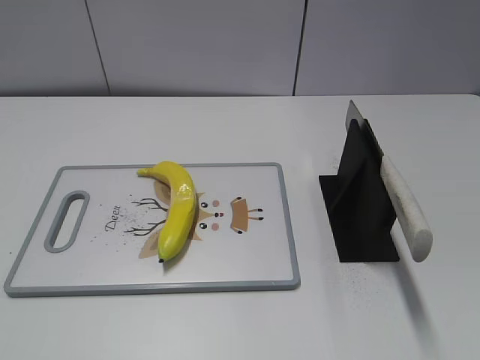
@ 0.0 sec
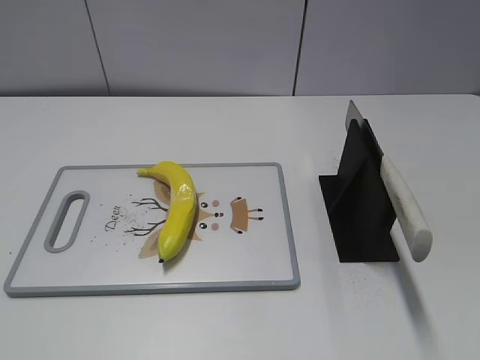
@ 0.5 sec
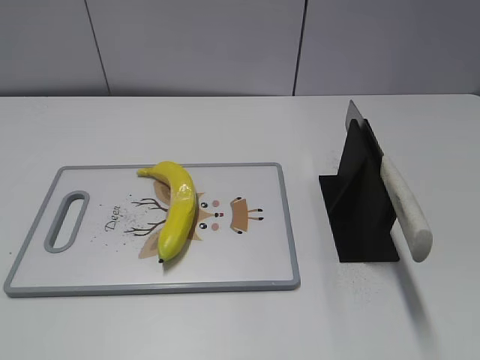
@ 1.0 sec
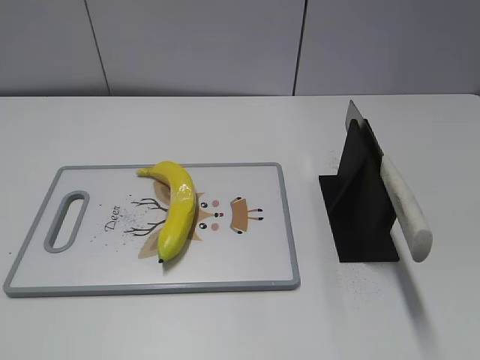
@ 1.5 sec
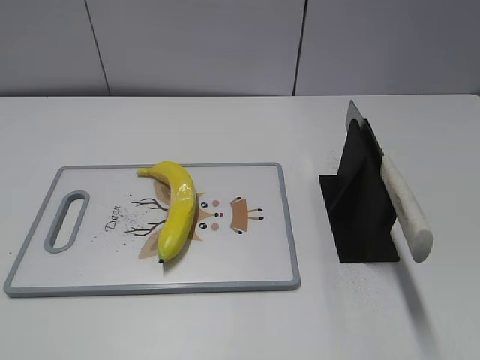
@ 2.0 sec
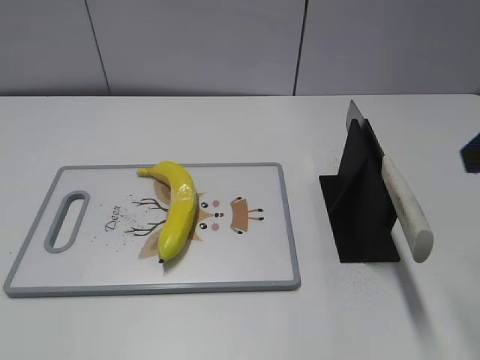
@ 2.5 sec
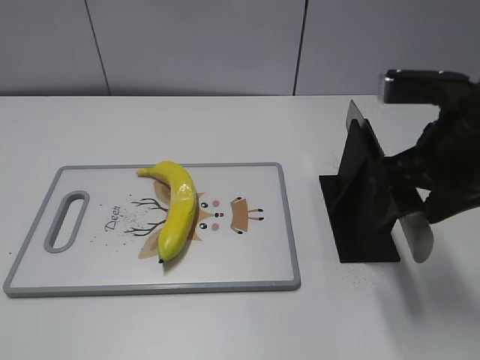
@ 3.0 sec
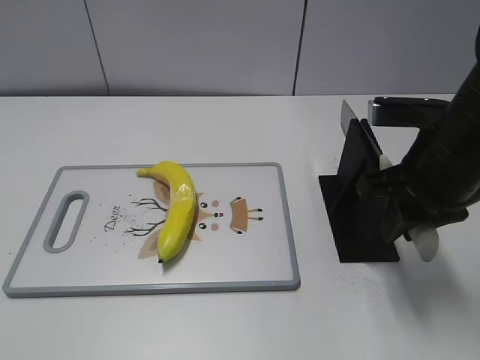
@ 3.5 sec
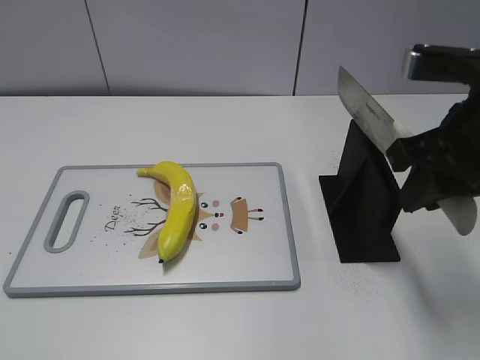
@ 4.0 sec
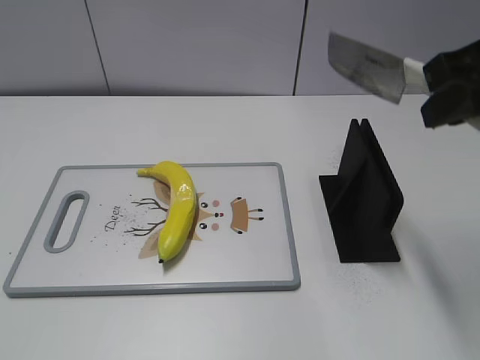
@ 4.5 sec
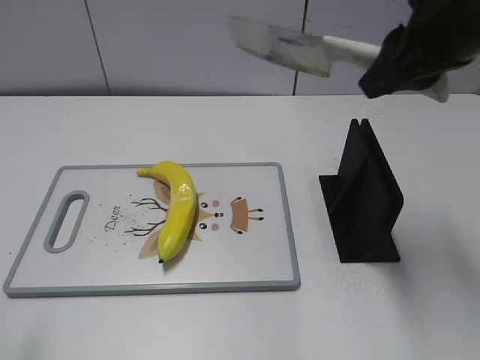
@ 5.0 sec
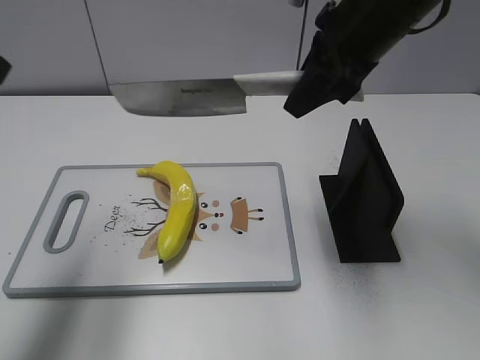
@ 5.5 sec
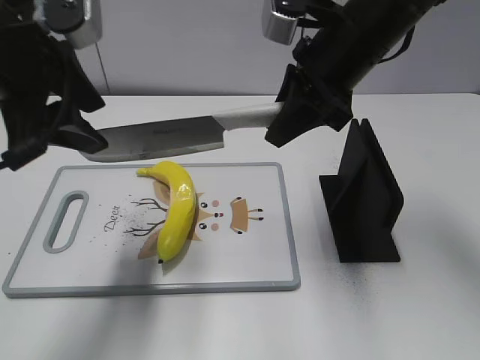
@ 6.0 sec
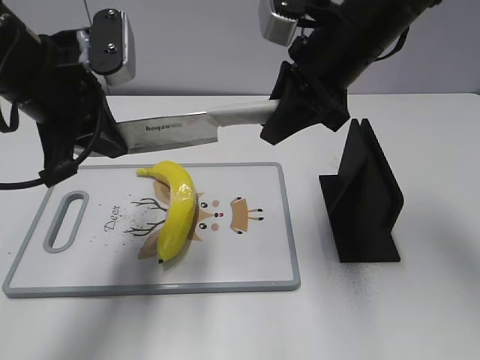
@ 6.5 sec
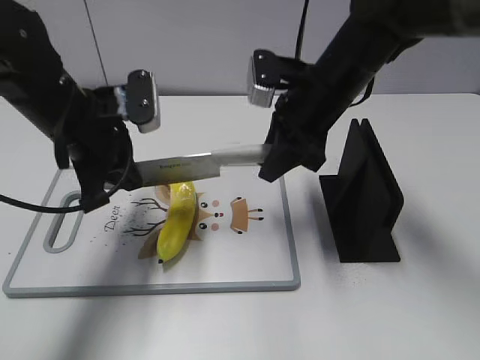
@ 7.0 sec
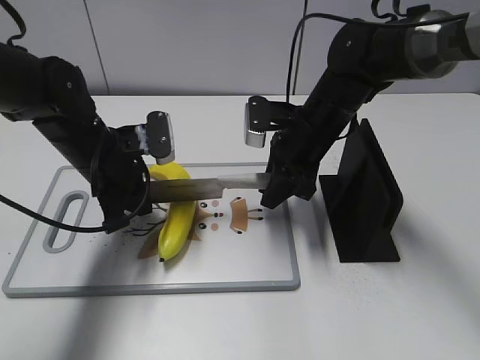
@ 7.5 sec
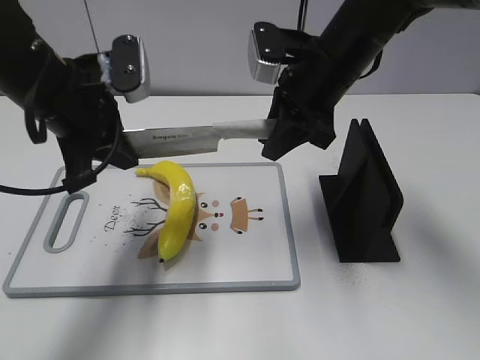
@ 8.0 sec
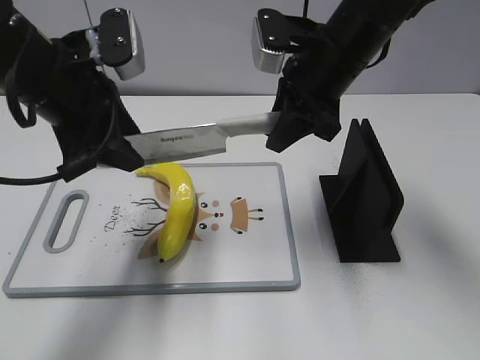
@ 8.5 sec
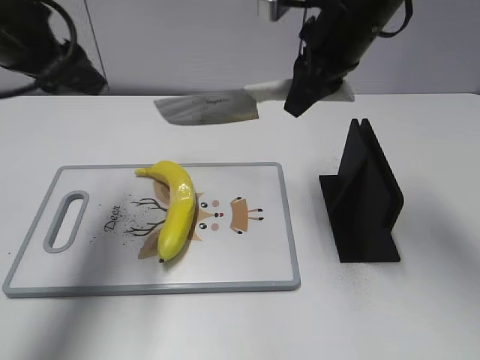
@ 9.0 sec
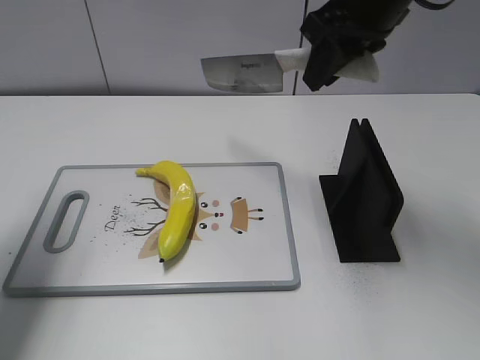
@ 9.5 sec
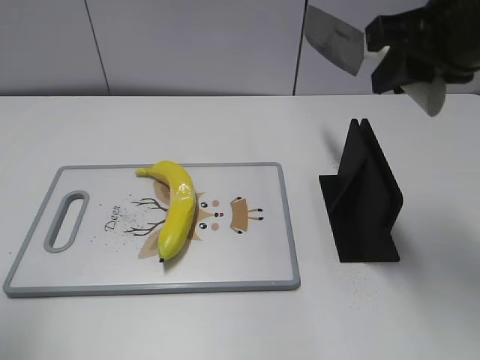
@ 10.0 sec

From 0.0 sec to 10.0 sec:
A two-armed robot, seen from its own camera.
Task of the whole recording: cut plastic banana.
Step, from 0.0 sec to 4.0 sec: Grab the knife handle with your right hand.
Step, from 4.5 sec to 8.0 sec: Lift the knife with your right hand.
Step, from 8.5 sec to 9.0 sec: Cut the banana with your right hand.
From 2.0 sec to 4.0 sec: The right gripper is displaced forward, to the left and downward by some 15 cm, and closes its fingers.
From 4.0 sec to 6.0 sec: The right gripper moves forward and to the left, some 15 cm, while the left gripper moves forward and to the right, some 30 cm.
From 6.0 sec to 8.0 sec: The right gripper moves about 15 cm downward and comes back; the left gripper goes downward and returns, roughly 15 cm each way, and closes its fingers.
From 8.0 sec to 10.0 sec: The right gripper is displaced backward, upward and to the right by about 15 cm. Meanwhile the left gripper heads backward, to the left and upward, covering some 25 cm, and opens.

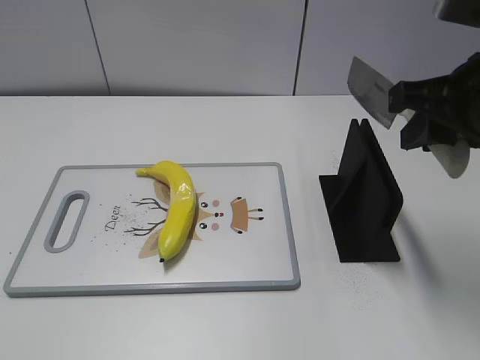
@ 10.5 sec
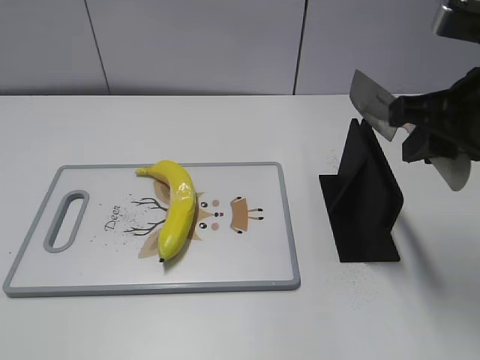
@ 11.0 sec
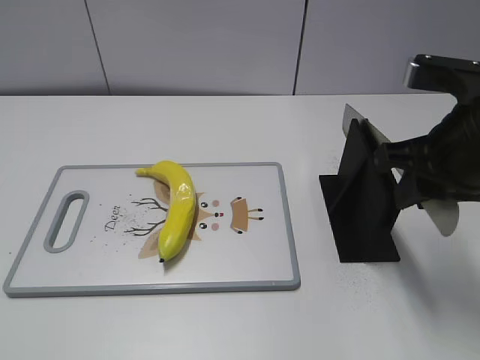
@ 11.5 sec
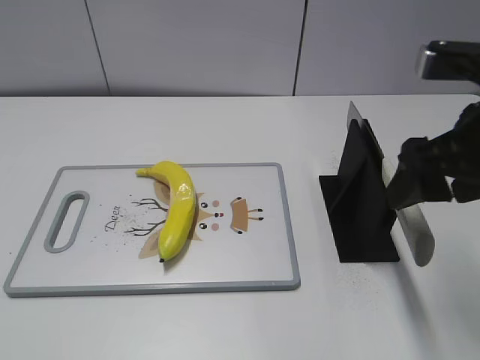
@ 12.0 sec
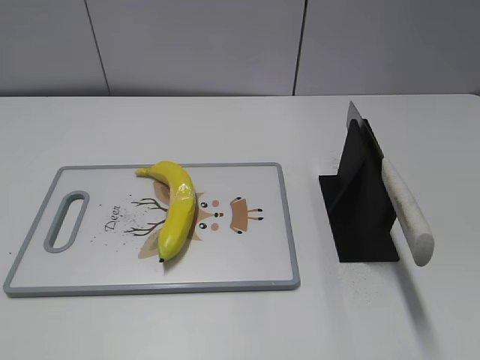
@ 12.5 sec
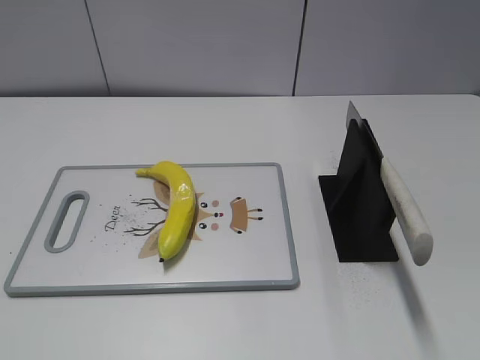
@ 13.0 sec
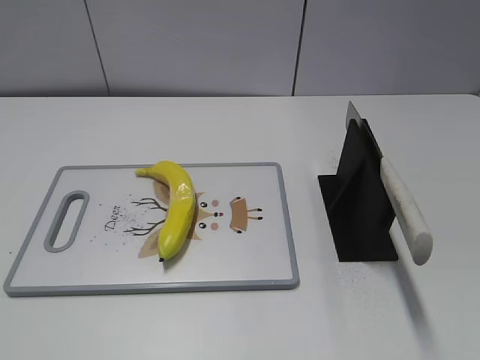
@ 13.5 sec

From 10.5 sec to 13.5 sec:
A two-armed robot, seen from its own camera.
Task of the whole recording: cut plastic banana.
Step, from 11.0 sec to 13.5 sec: Place the knife on the storage rack with your right hand.
From 10.5 sec to 12.0 sec: The right gripper opens up.
From 12.0 sec to 13.5 sec: The right gripper is displaced backward by roughly 25 cm.
